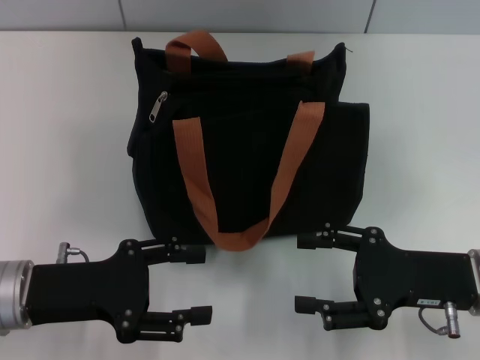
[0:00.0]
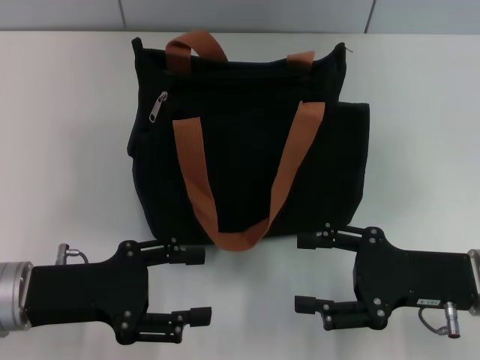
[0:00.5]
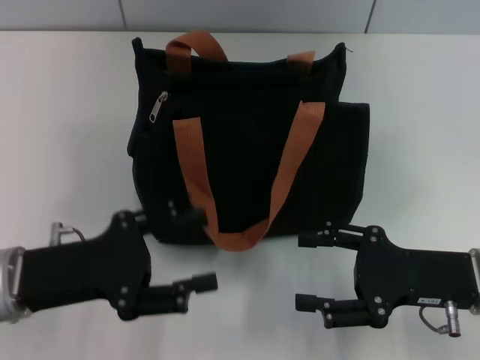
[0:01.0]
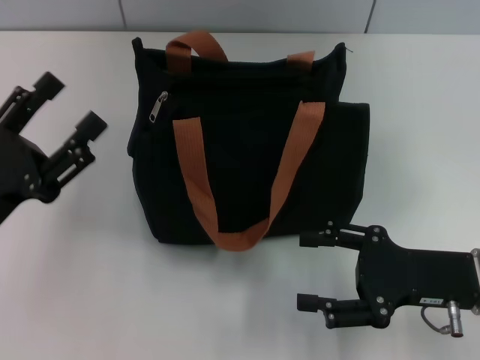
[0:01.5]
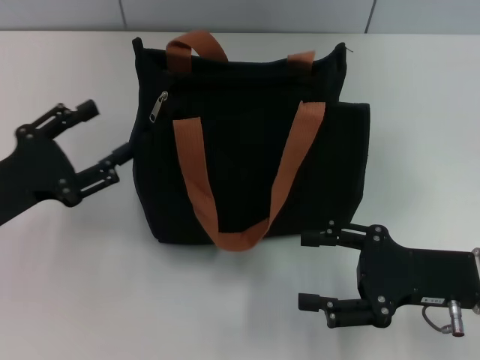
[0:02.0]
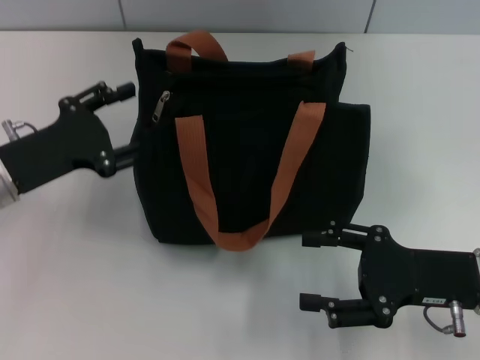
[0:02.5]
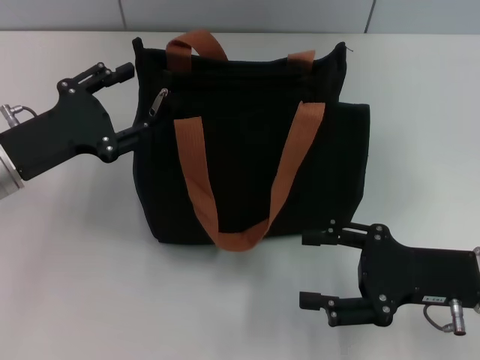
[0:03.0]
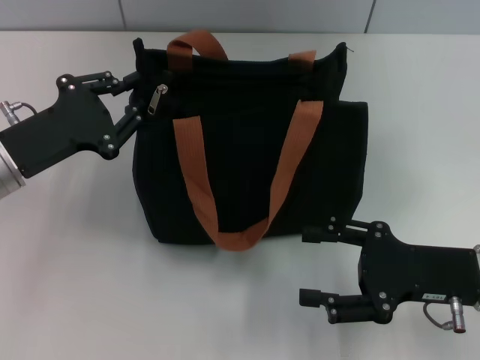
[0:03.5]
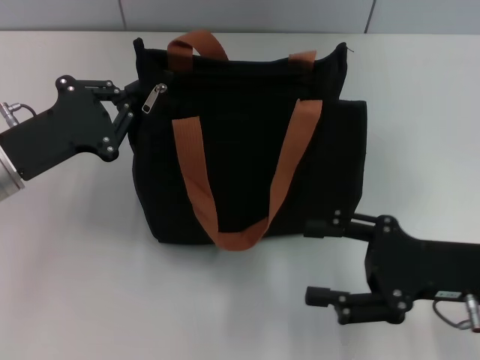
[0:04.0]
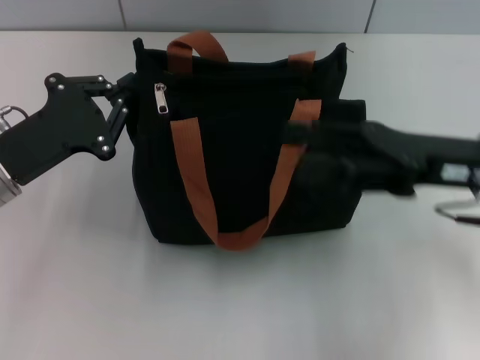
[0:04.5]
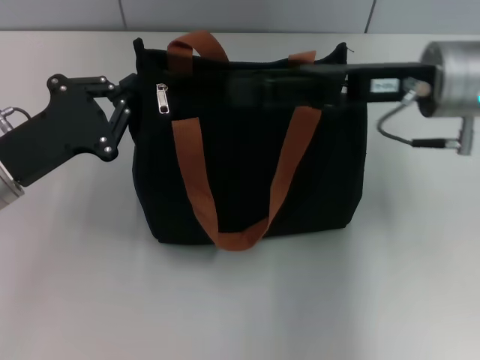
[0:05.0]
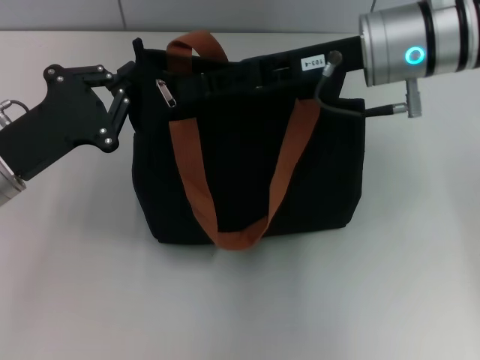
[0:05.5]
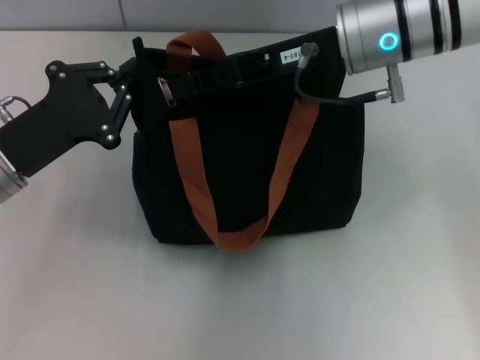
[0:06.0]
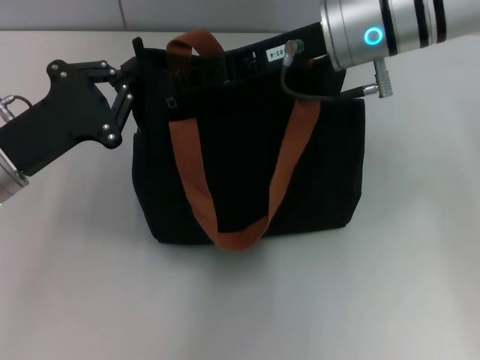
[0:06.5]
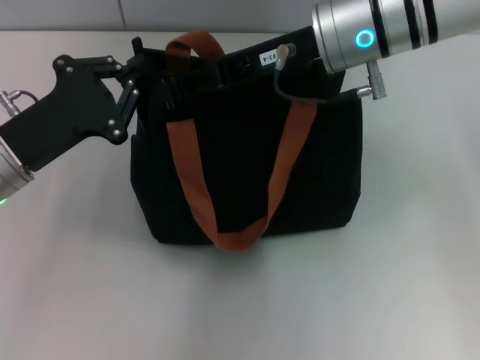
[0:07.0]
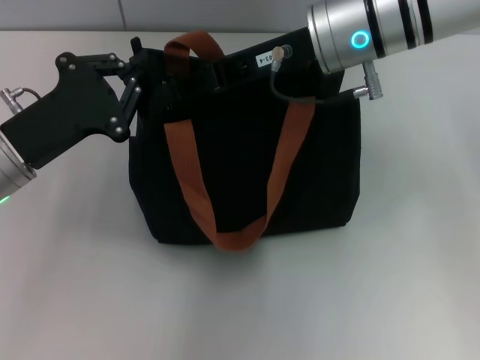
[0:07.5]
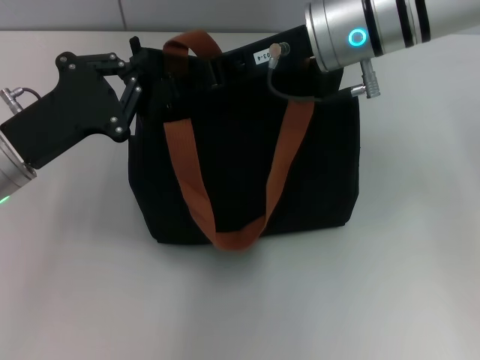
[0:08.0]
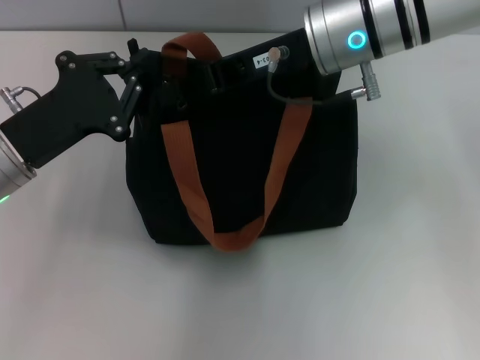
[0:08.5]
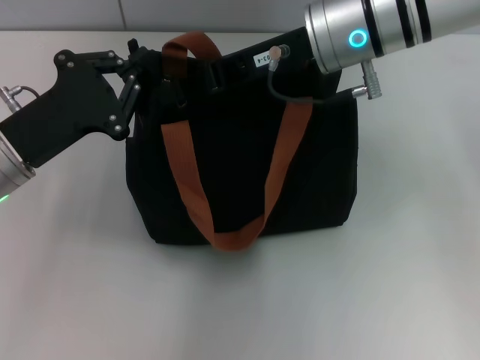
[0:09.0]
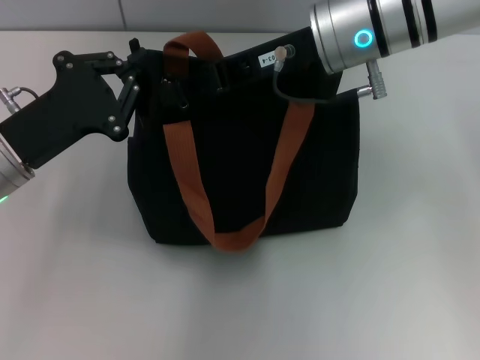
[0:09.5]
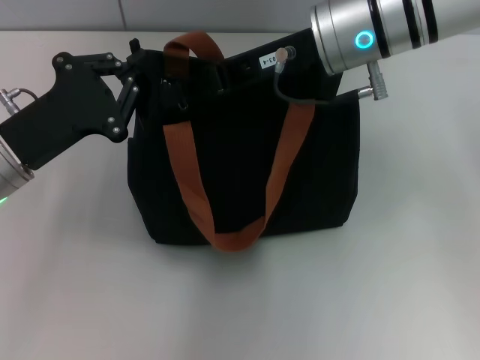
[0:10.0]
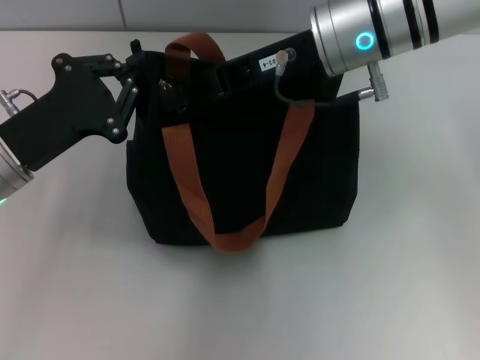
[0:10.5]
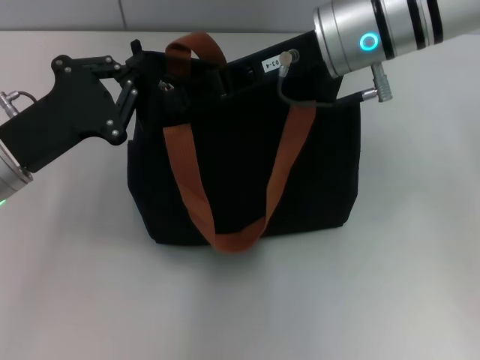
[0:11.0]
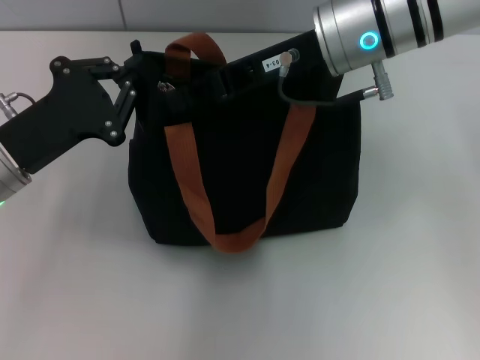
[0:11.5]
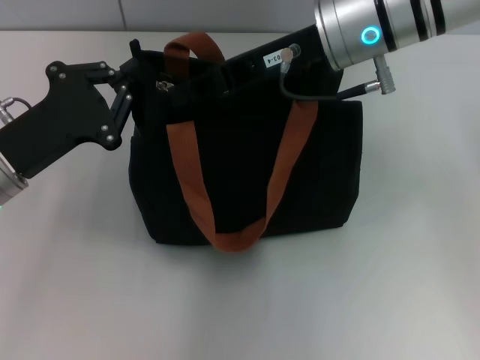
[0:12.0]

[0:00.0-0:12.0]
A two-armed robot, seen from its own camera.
0:00.0 to 0:02.0: The left gripper changes place by approximately 5 cm.
0:02.0 to 0:04.0: The left gripper goes approximately 5 cm forward, and closes its fingers.
0:04.0 to 0:06.0: The right gripper goes roughly 25 cm forward, to the left and upward, and closes up.
0:06.0 to 0:08.0: The grippers move only a little.
0:08.0 to 0:10.0: The two grippers keep their place.
0:10.0 to 0:12.0: The two grippers keep their place.

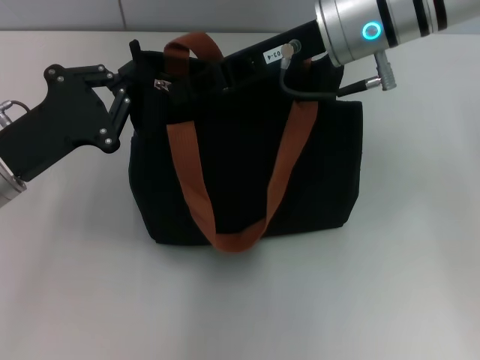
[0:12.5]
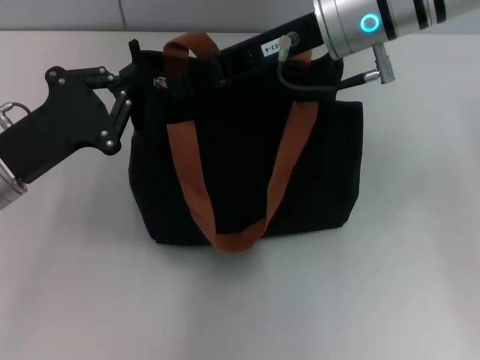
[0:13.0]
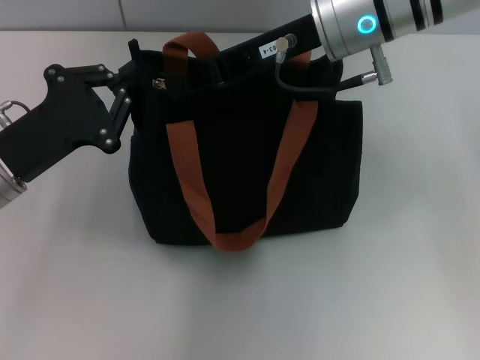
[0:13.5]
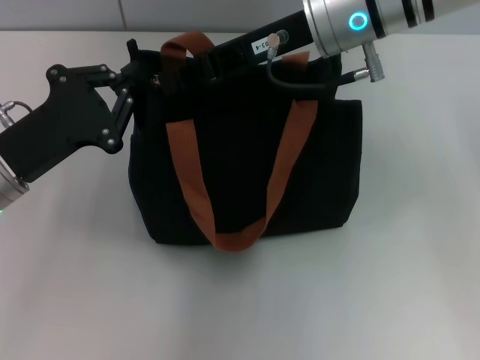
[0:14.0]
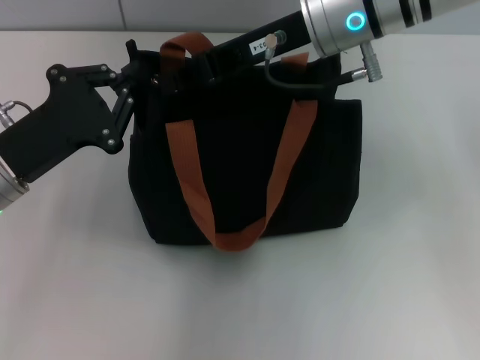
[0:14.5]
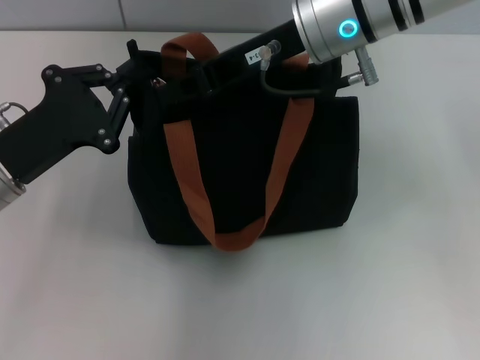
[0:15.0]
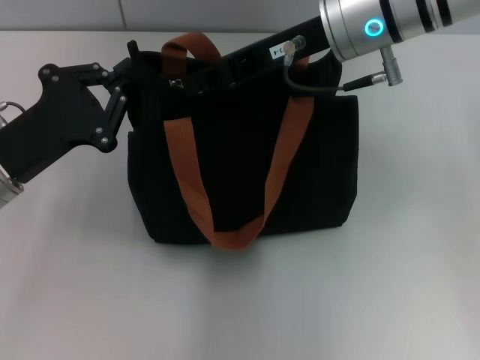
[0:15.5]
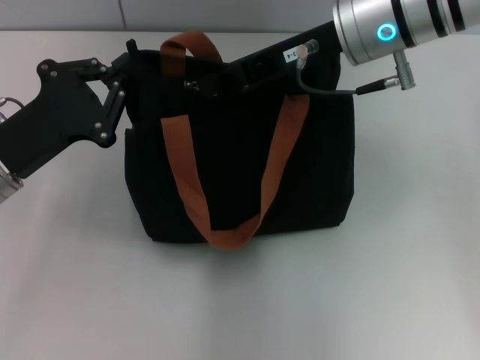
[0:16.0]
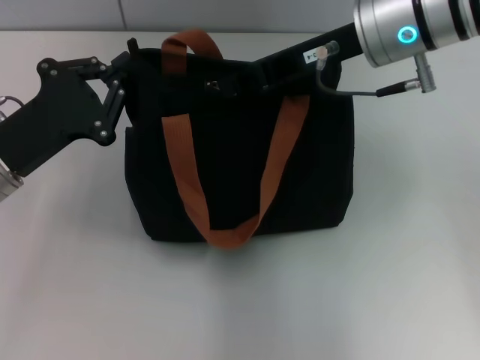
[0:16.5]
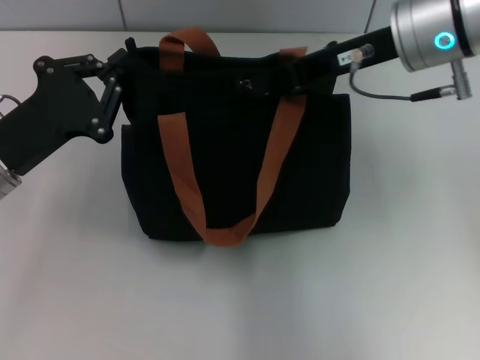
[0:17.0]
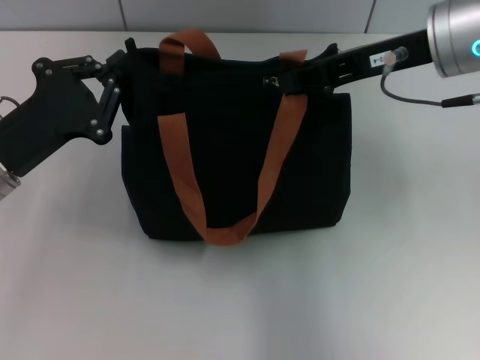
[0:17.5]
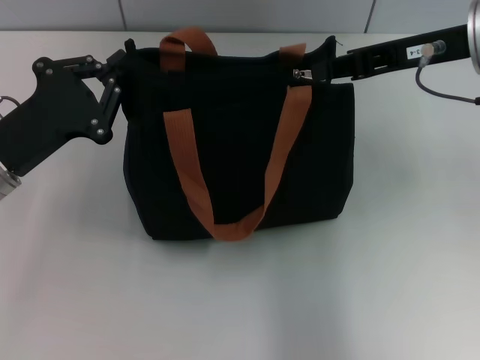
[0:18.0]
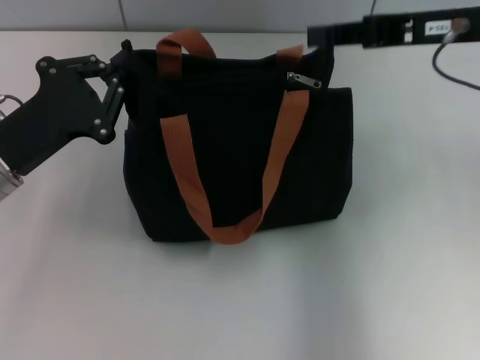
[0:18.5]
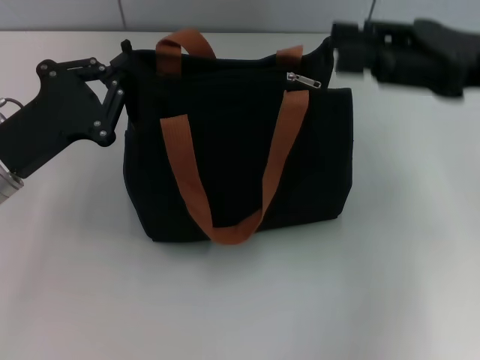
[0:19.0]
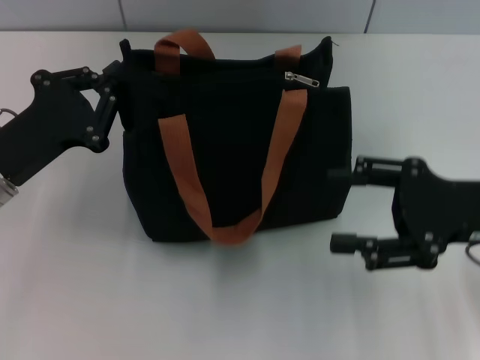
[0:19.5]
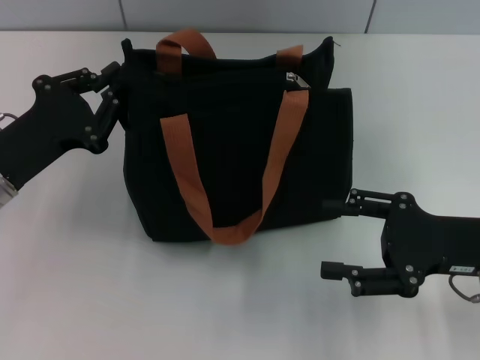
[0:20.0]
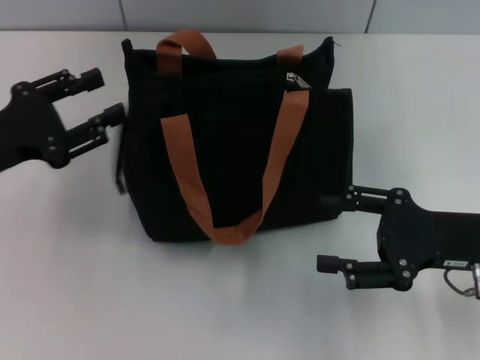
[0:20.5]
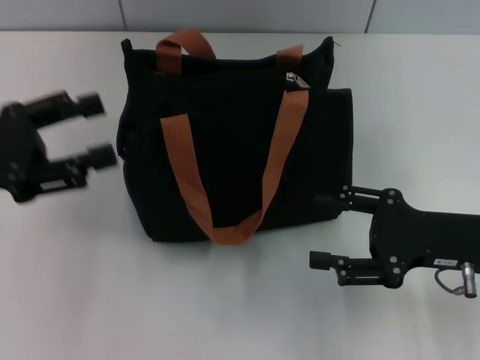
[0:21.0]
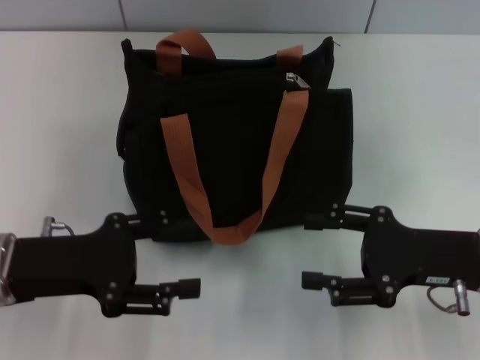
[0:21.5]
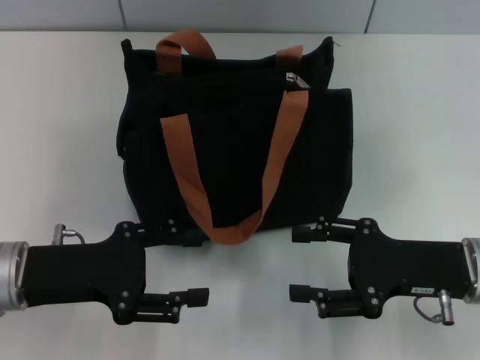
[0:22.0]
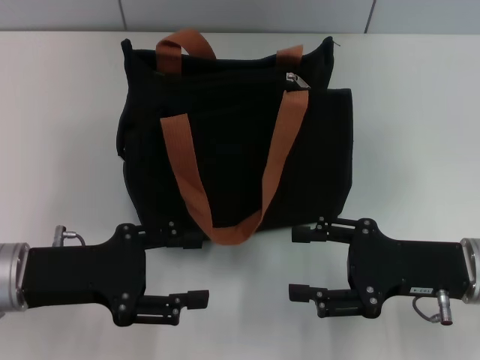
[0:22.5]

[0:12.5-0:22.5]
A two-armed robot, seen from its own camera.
Step, 0:12.5 to 0:18.0: Pull up the zipper with your right hand.
0:12.5 to 0:14.5: Both grippers stay put.
0:14.5 to 0:16.5: The grippers make only small movements.
0:16.5 to 0:18.5: The right gripper travels to the right by approximately 10 cm.
0:18.5 to 0:20.5: The left gripper ends up some 5 cm from where it was, and opens its fingers, while the right gripper travels downward and backward by approximately 20 cm, and opens its fingers.
0:20.5 to 0:22.5: The left gripper is displaced to the right by about 5 cm.

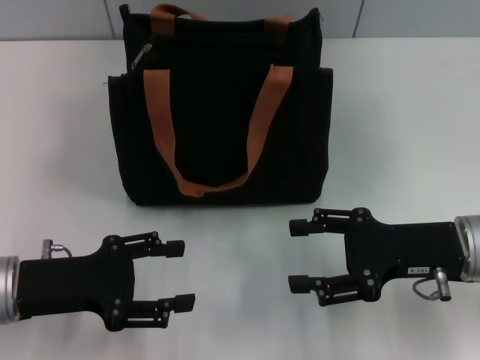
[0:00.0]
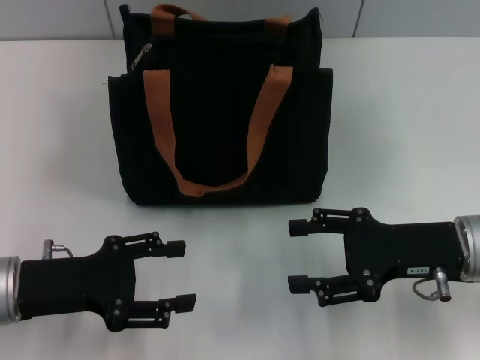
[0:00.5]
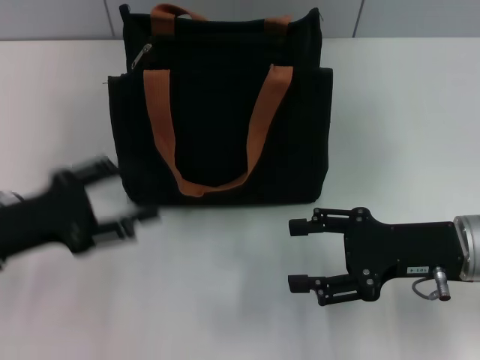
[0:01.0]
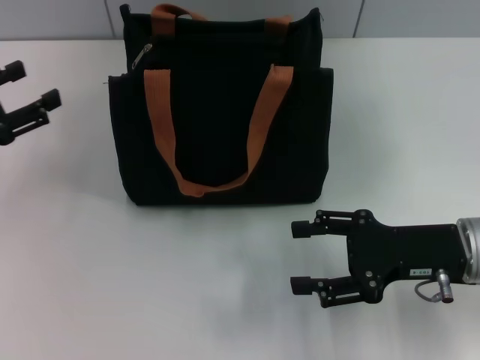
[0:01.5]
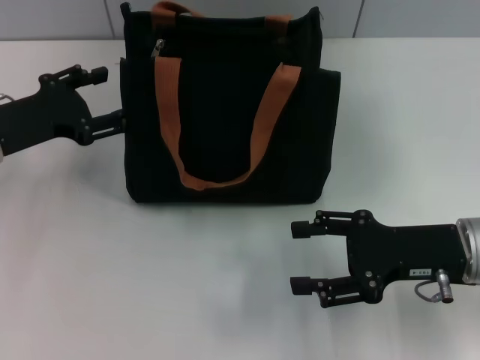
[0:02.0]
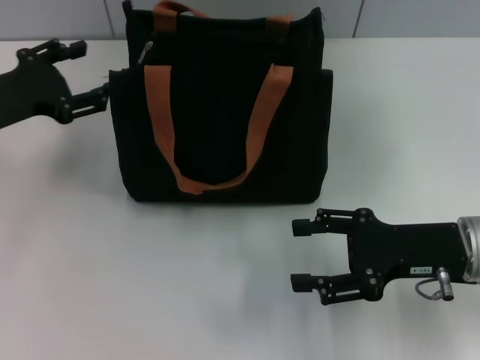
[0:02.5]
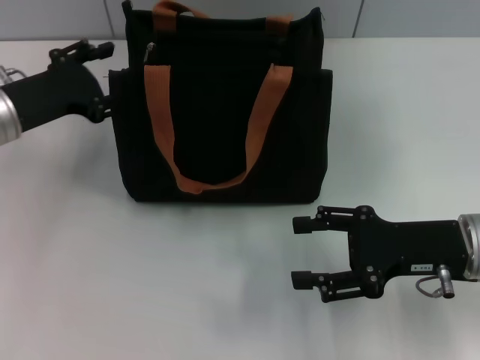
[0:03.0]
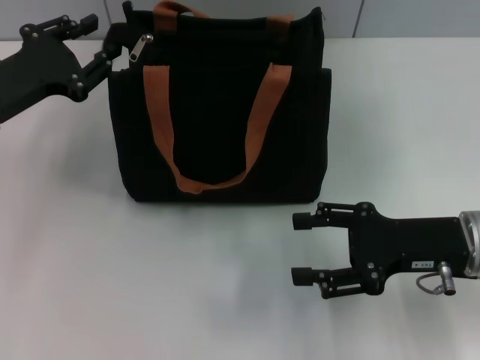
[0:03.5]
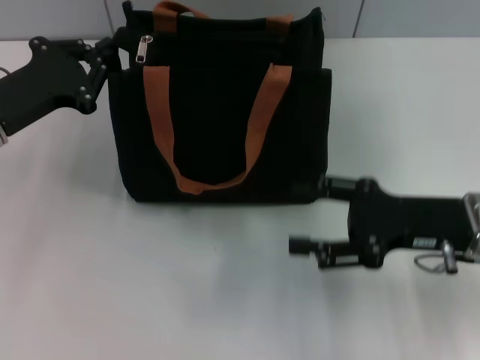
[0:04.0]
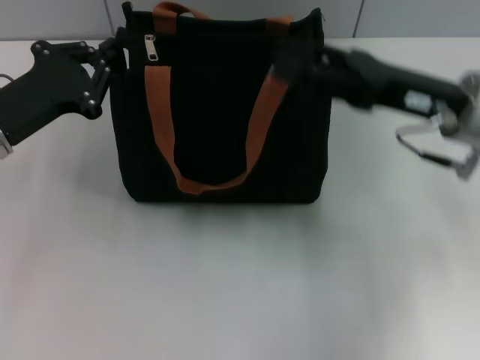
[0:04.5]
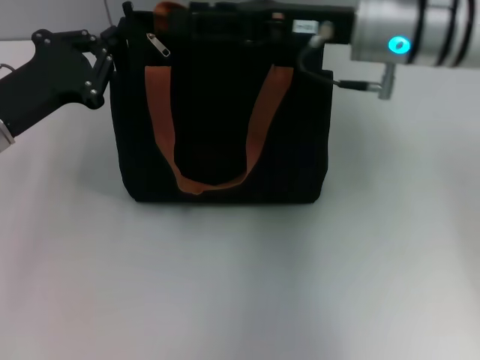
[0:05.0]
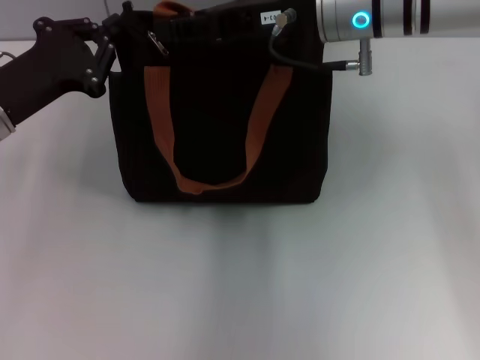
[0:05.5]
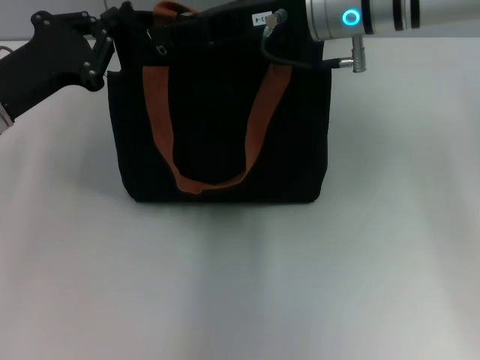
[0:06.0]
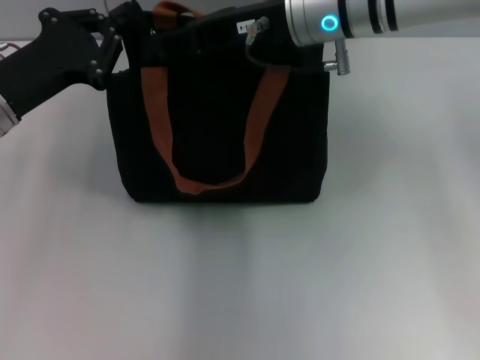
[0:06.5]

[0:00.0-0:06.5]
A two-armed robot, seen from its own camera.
0:00.0 to 0:02.0: The left gripper heads forward, covering some 10 cm.
0:02.0 to 0:04.5: The right gripper is displaced upward and forward by about 10 cm, while the left gripper closes.
0:04.5 to 0:06.5: The right gripper moves to the left, forward and upward, about 15 cm, and closes.
